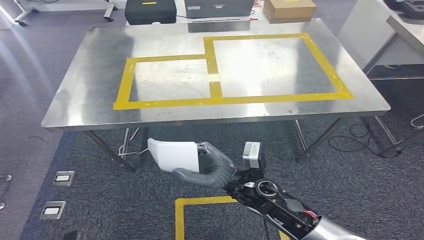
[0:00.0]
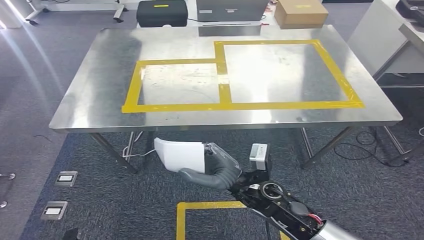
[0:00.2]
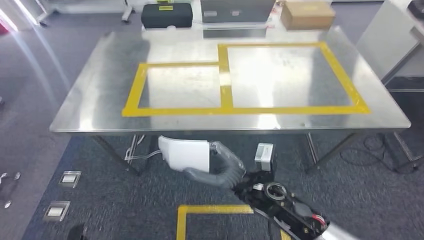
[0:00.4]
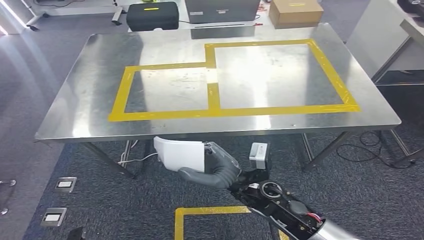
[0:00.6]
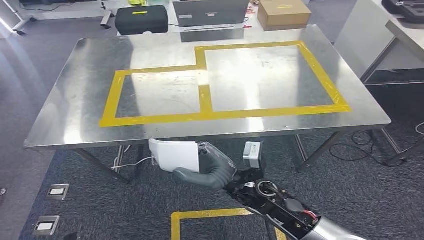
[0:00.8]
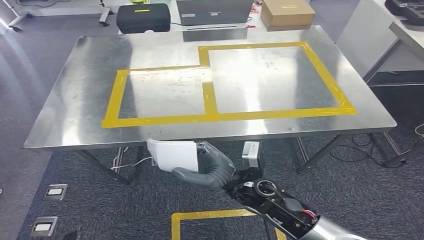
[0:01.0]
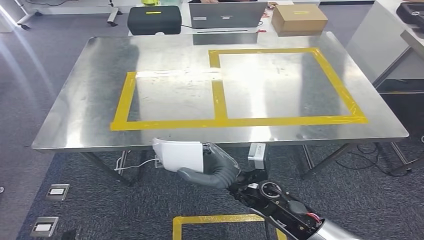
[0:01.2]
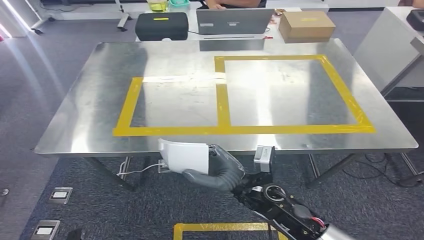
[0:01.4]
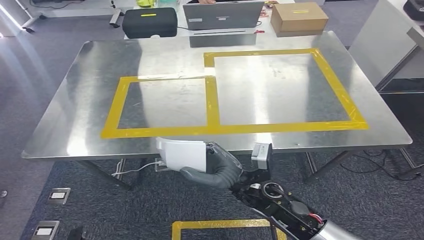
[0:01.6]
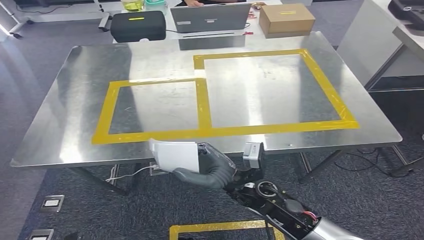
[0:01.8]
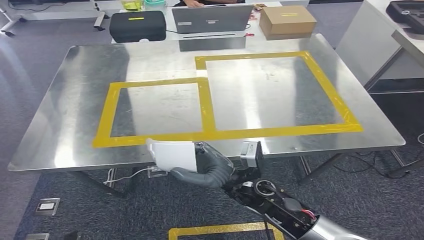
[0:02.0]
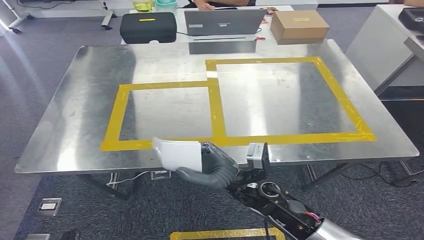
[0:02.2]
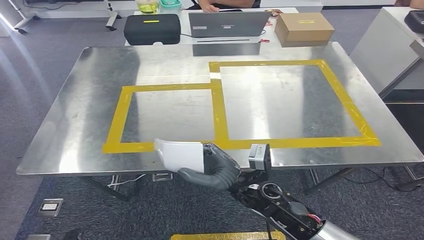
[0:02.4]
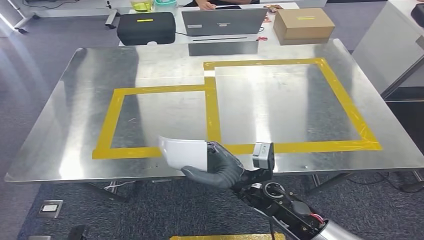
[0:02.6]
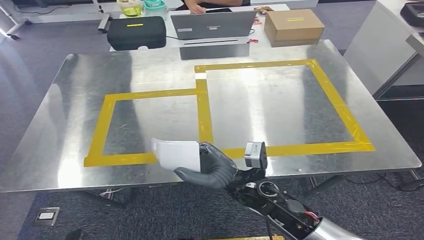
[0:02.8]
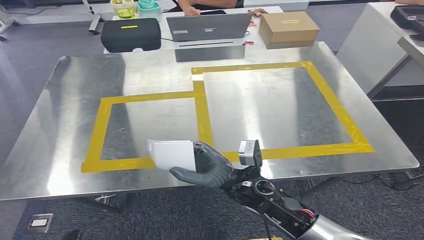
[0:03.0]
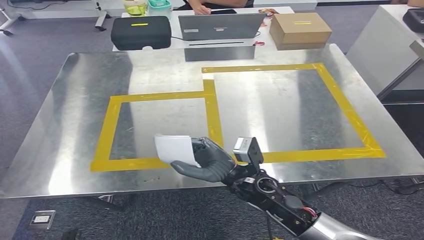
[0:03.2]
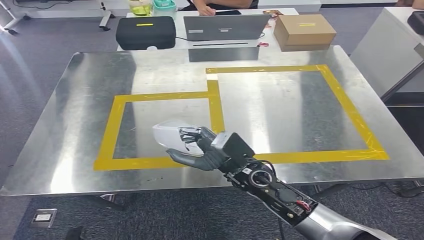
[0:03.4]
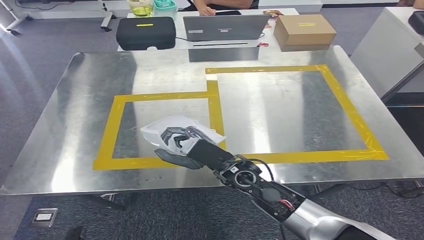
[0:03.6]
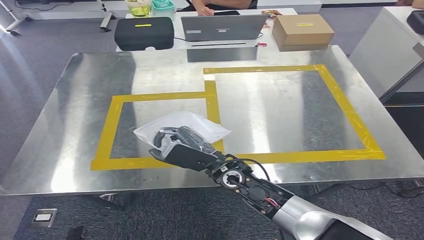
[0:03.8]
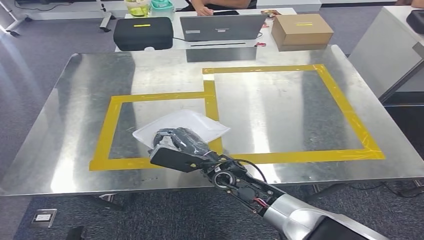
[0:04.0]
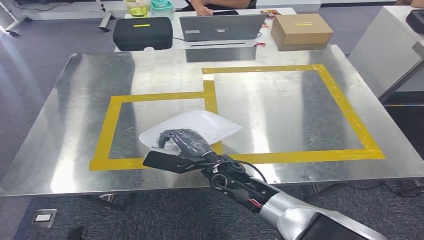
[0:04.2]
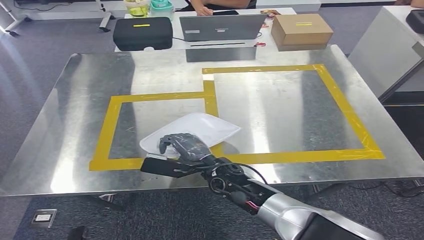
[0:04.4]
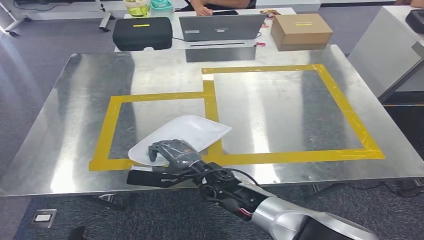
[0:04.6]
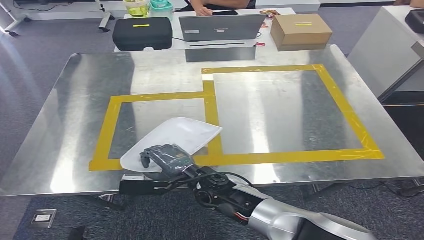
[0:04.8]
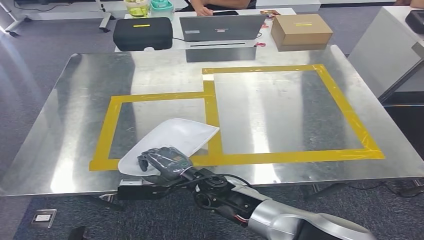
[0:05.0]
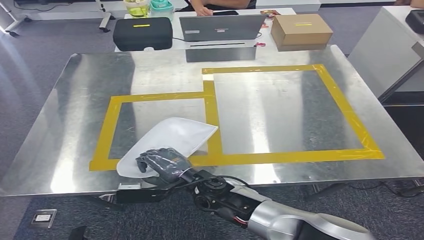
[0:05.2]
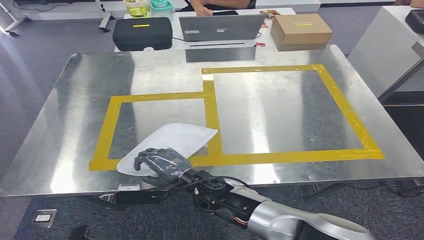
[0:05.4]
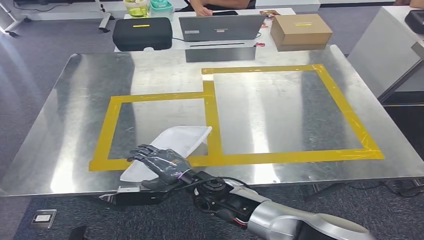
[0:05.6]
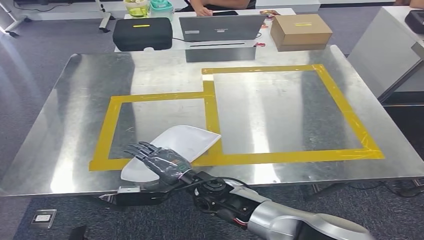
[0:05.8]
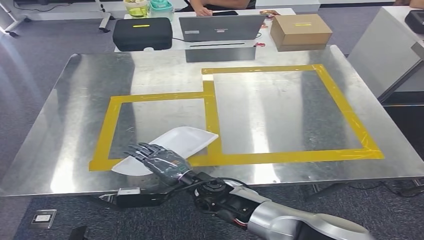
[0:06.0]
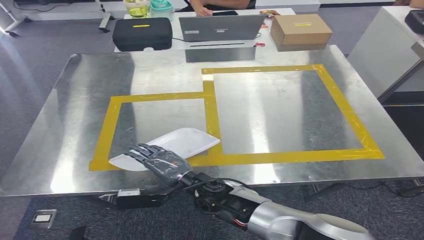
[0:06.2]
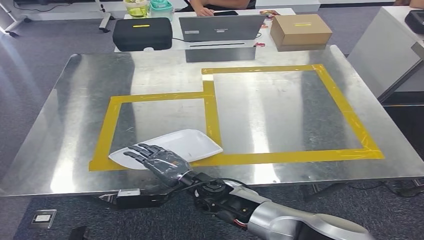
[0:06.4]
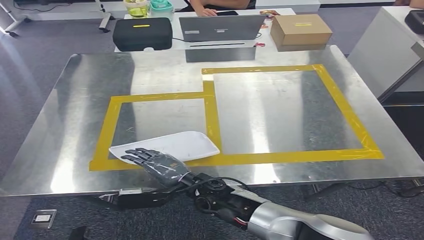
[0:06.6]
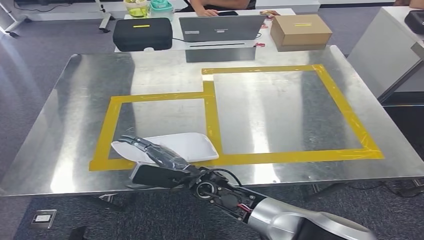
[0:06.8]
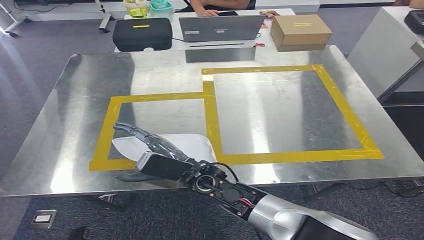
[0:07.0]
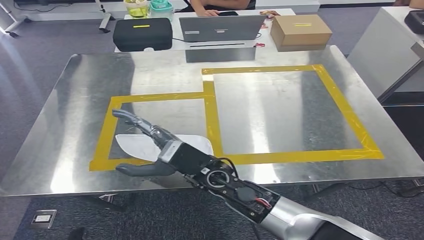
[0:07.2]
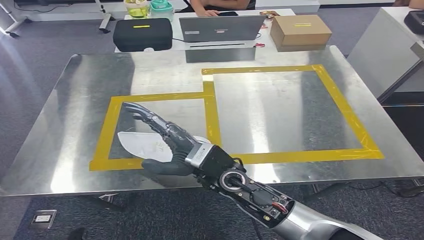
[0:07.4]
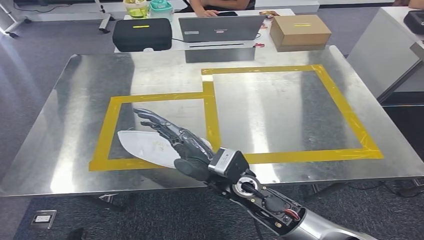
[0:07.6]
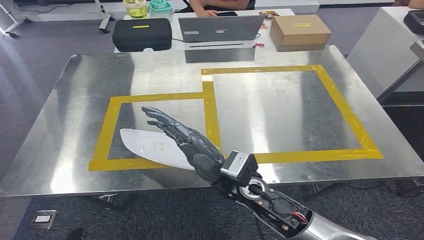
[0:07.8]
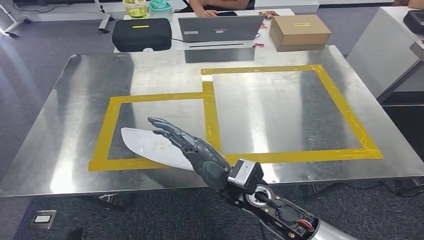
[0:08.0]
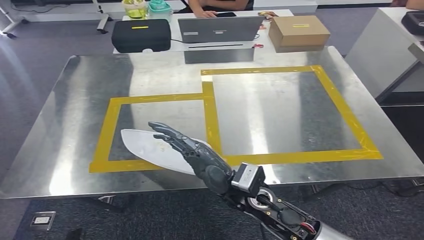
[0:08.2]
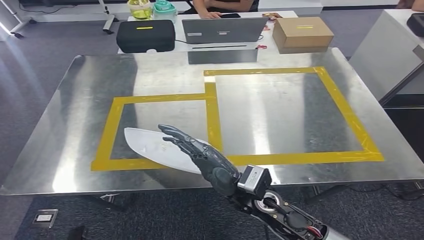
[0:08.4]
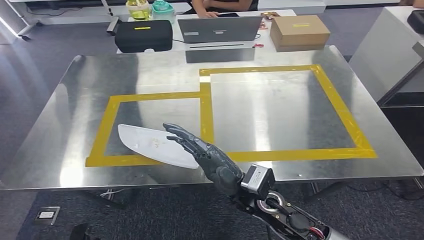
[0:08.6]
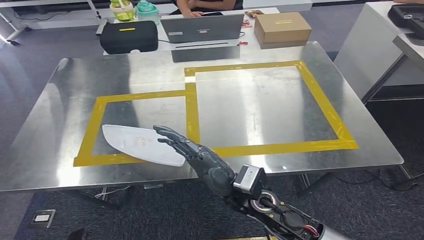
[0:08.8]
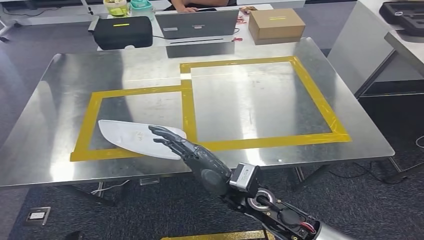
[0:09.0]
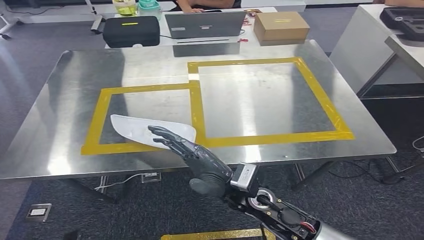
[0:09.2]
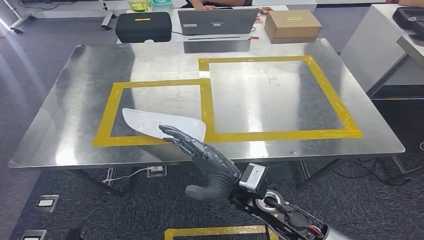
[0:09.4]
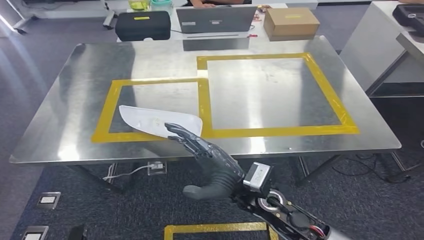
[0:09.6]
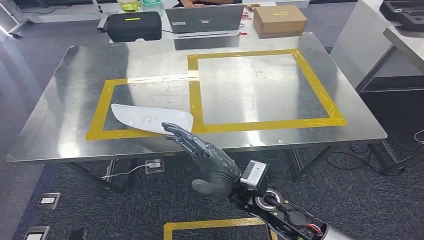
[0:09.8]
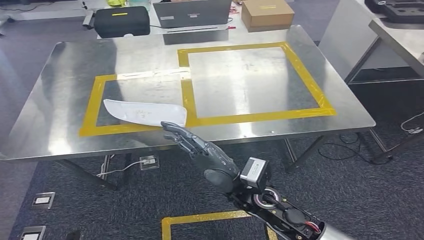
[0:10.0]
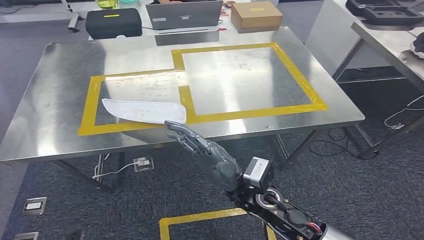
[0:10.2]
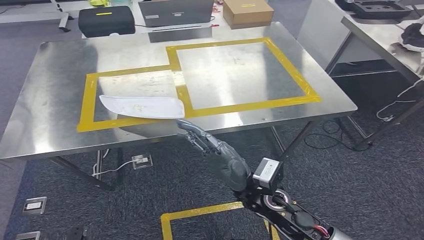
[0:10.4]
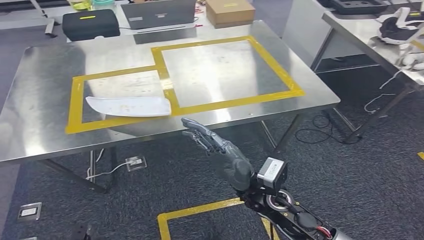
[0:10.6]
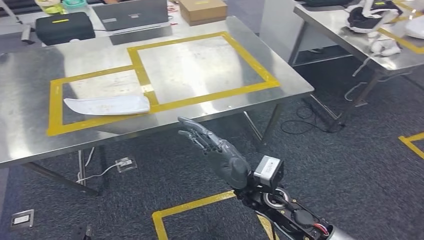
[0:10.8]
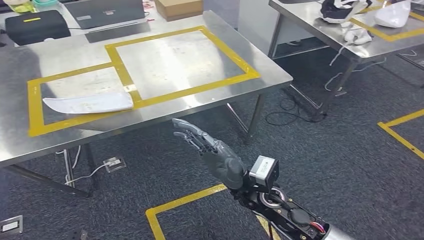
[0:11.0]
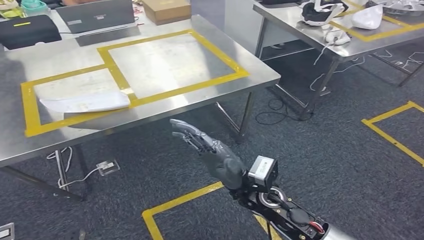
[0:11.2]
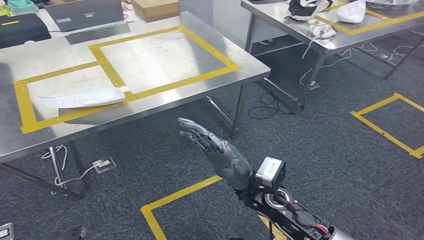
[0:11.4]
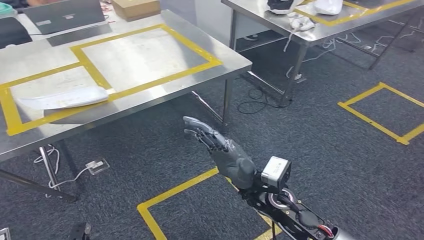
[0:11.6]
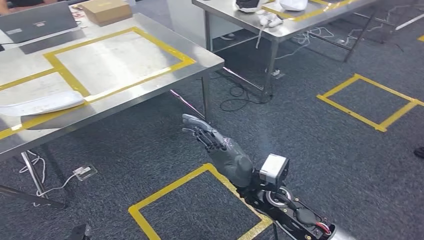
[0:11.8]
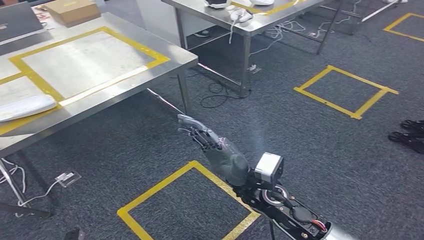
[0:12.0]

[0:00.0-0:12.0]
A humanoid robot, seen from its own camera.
Step, 0:00.0 to 0:07.0: Insert the small parts into the corresponding holes on the workbench.
0:04.4 to 0:06.0: The right hand moves about 5 cm.
0:06.0 to 0:07.6: The right hand heads upward and to the right, covering approximately 10 cm.

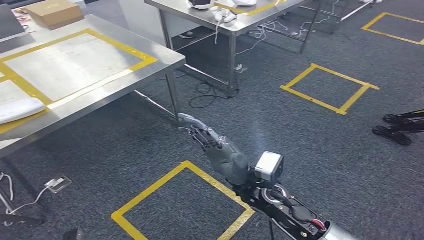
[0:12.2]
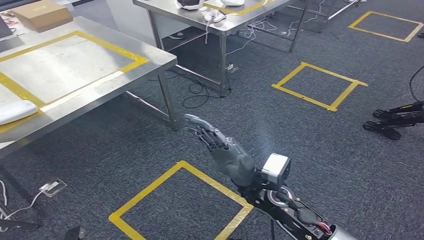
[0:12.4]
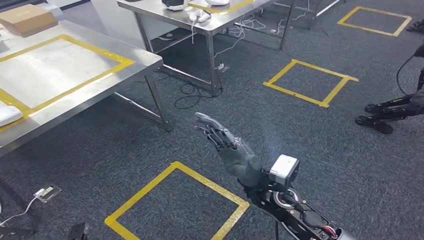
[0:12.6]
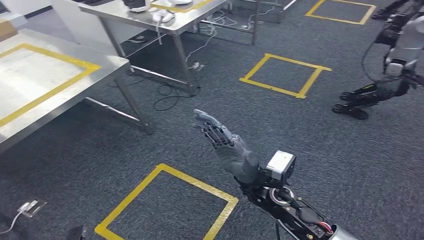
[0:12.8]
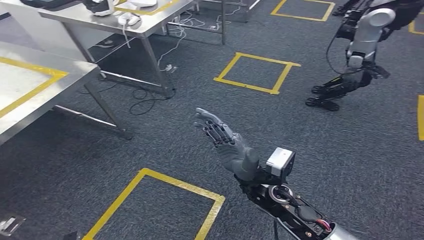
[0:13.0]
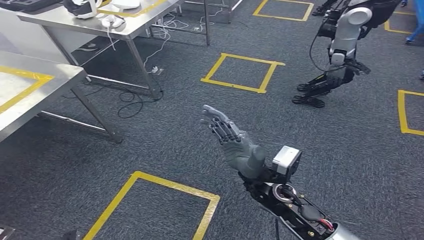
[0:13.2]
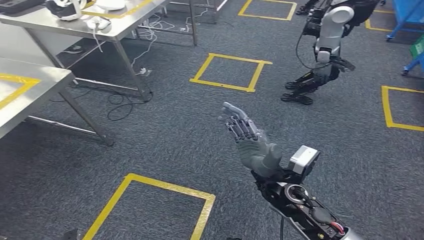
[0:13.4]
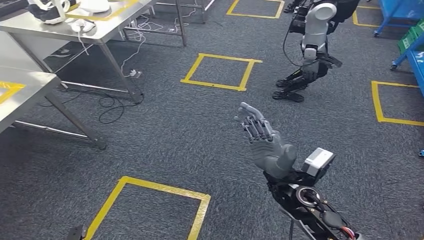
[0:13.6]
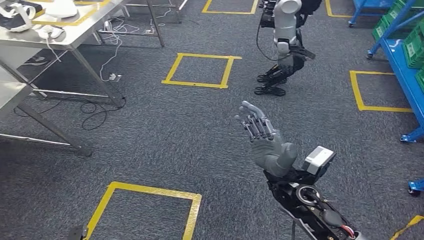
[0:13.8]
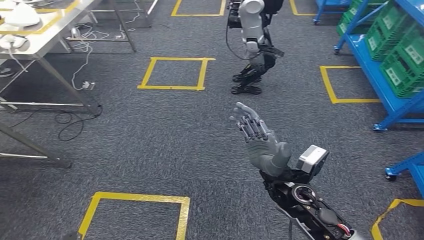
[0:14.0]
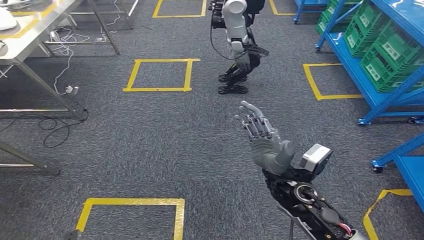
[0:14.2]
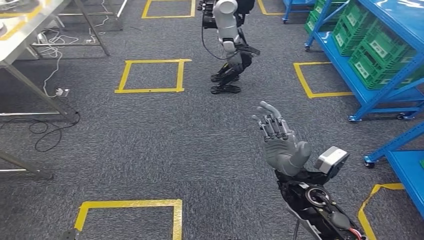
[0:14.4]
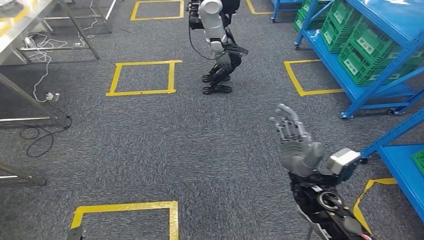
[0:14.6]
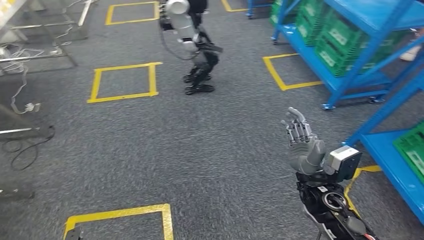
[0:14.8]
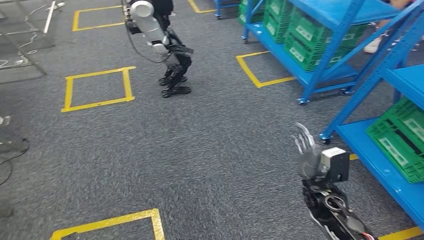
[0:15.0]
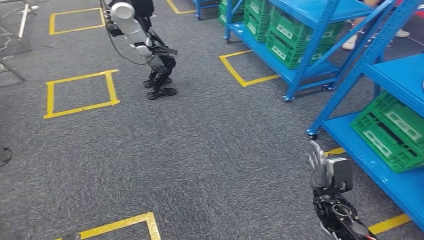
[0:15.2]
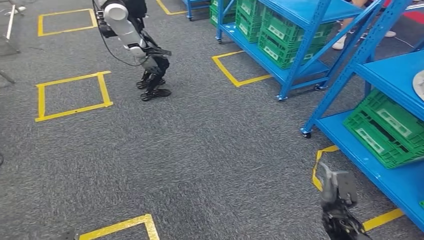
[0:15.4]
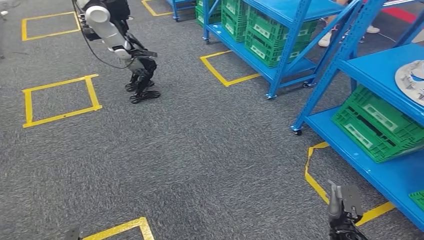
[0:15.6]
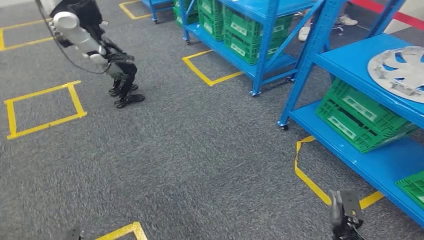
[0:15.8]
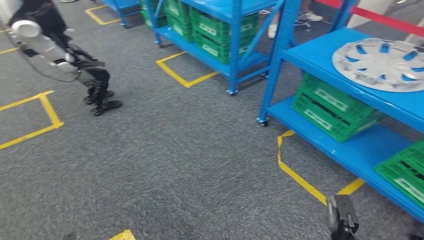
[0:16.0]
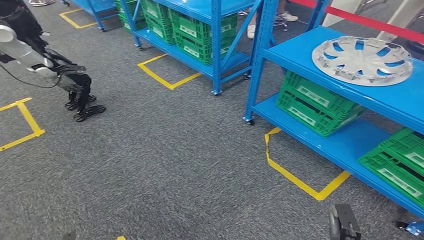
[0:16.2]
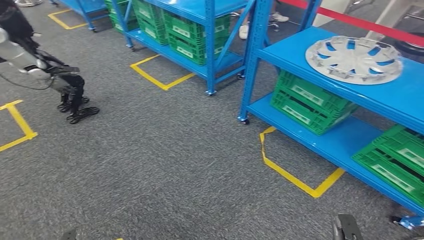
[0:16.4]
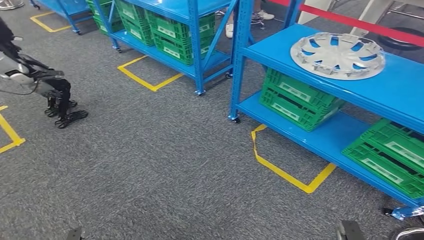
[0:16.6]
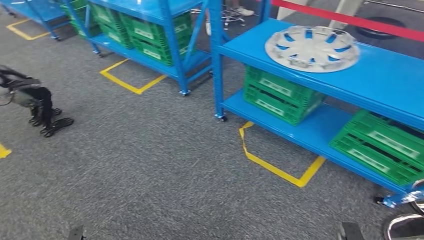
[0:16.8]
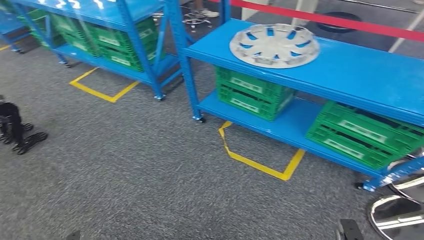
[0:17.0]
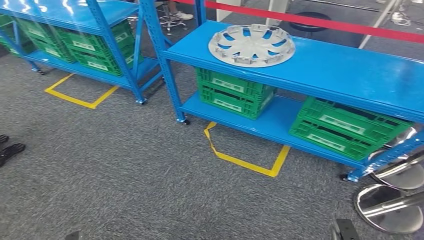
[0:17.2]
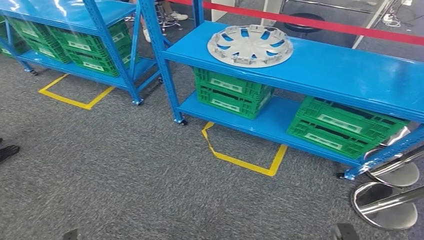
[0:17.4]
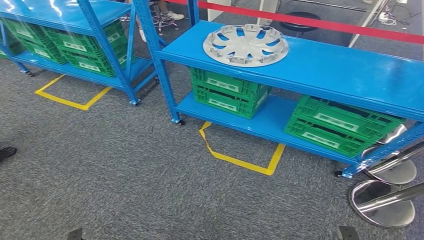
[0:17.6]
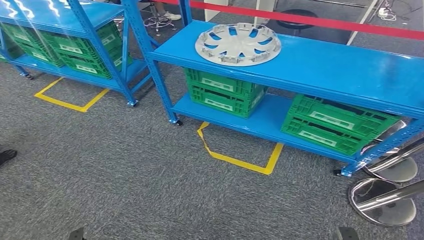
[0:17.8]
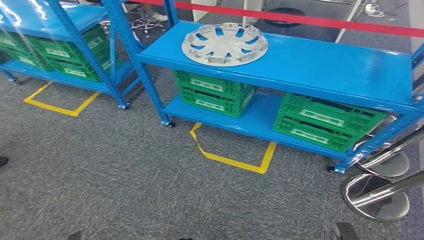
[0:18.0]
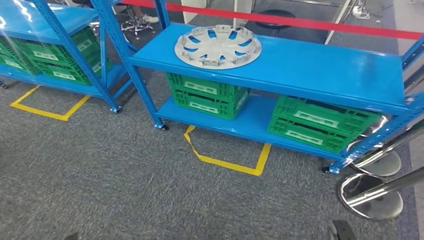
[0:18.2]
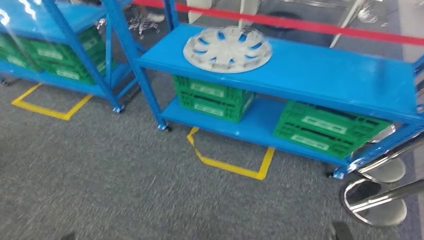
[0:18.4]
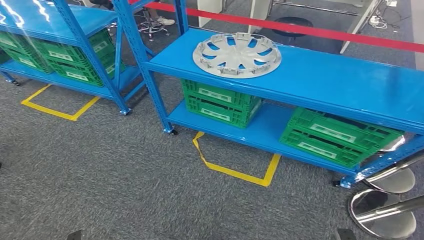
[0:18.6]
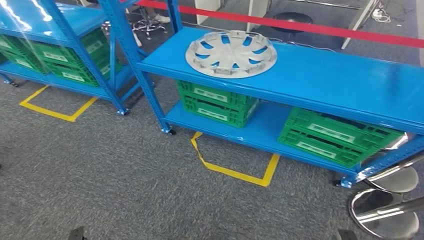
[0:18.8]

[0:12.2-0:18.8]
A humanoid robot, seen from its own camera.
Step, 0:12.2 to 0:18.8: Move to the initial position at the workbench.
